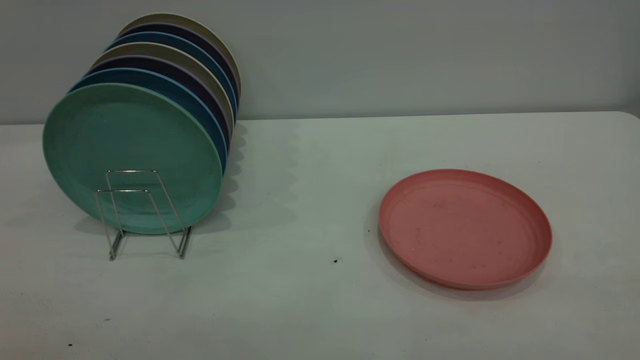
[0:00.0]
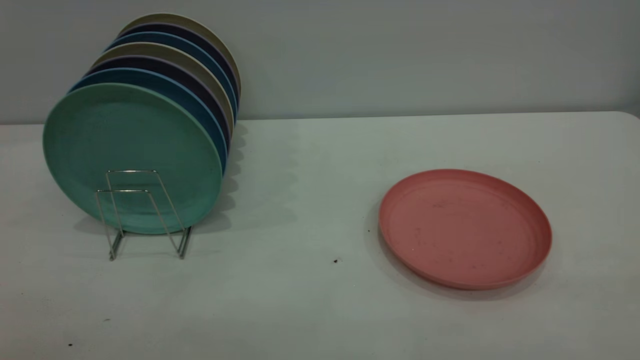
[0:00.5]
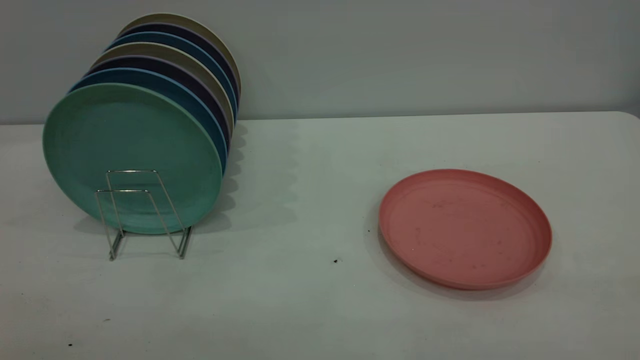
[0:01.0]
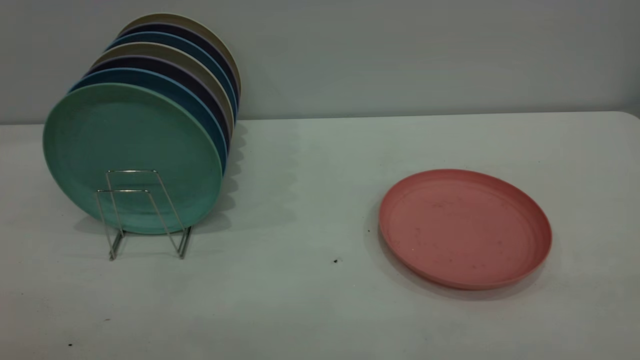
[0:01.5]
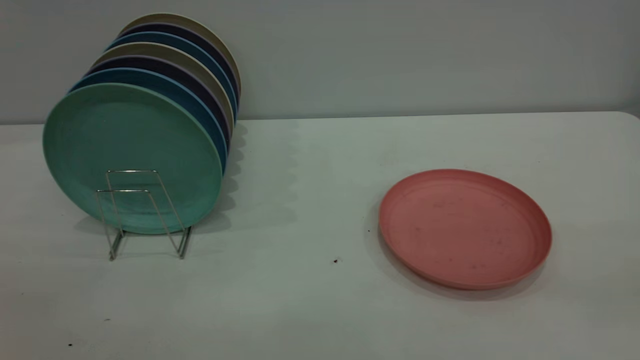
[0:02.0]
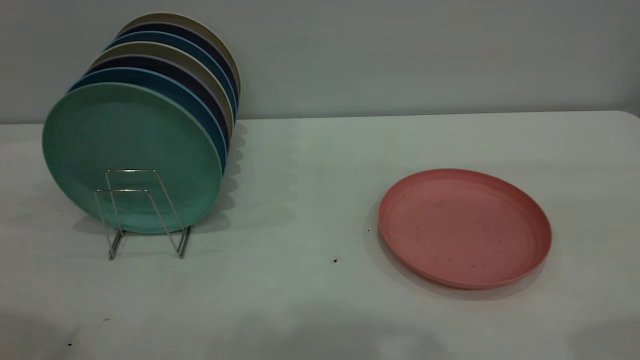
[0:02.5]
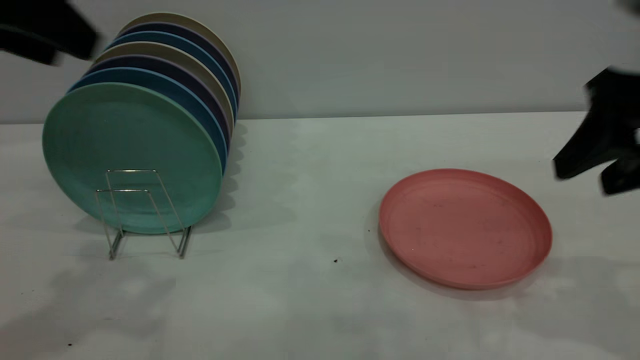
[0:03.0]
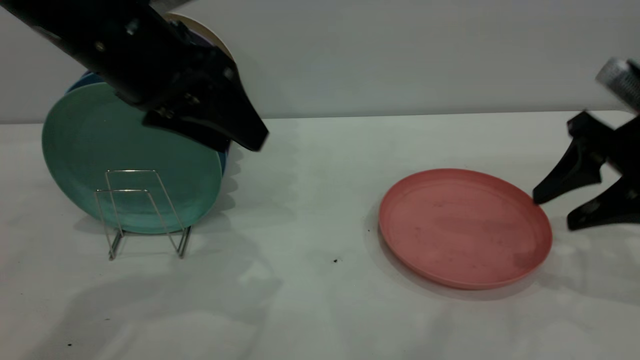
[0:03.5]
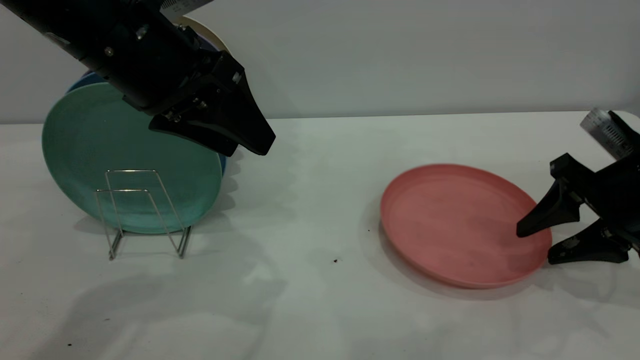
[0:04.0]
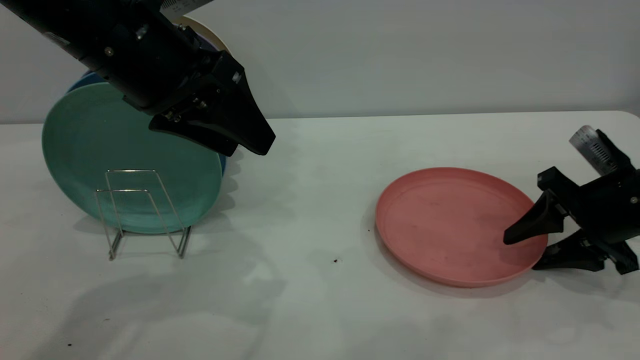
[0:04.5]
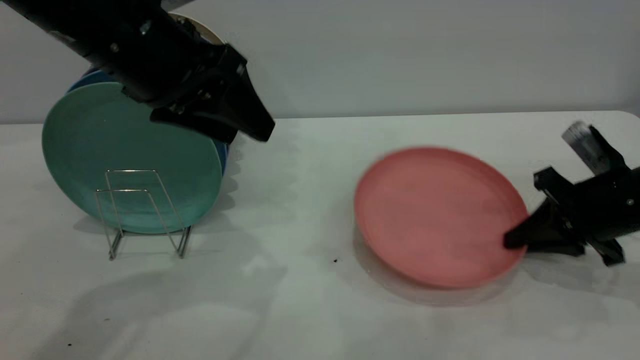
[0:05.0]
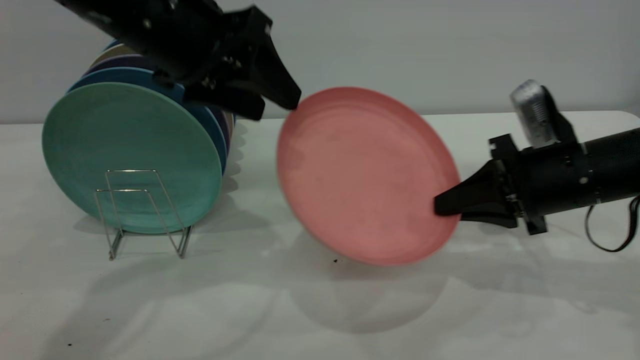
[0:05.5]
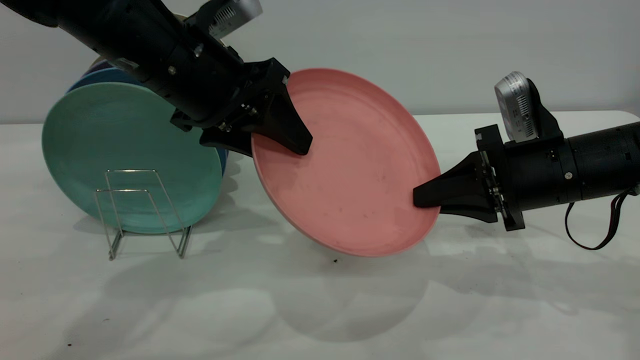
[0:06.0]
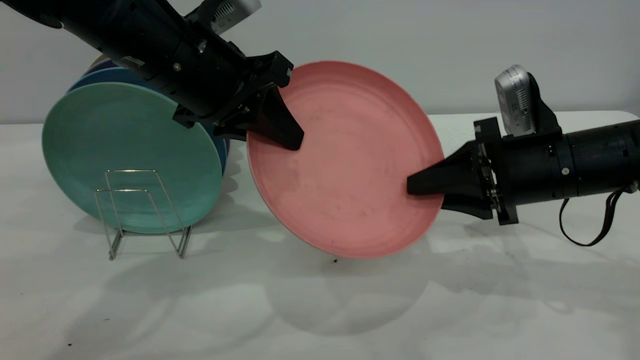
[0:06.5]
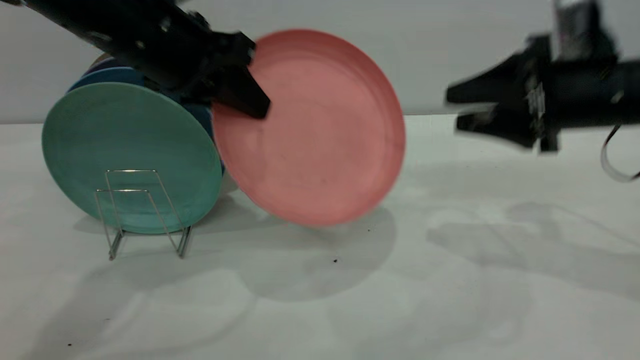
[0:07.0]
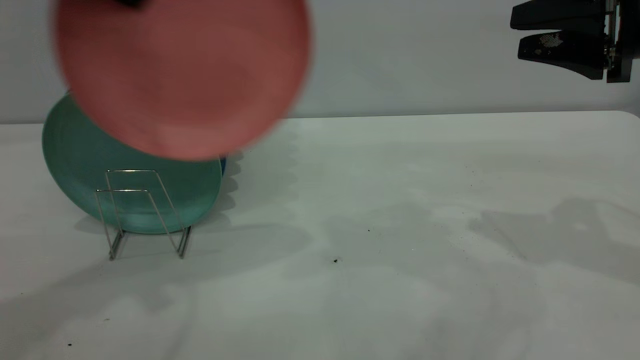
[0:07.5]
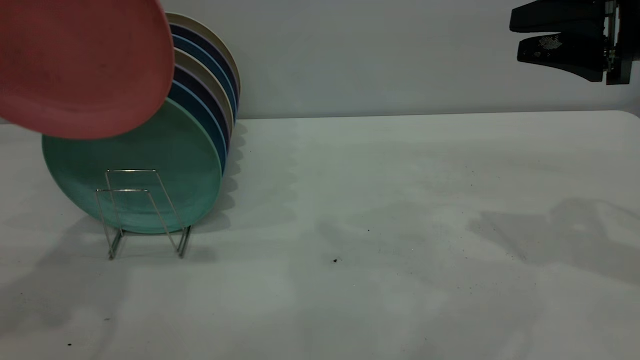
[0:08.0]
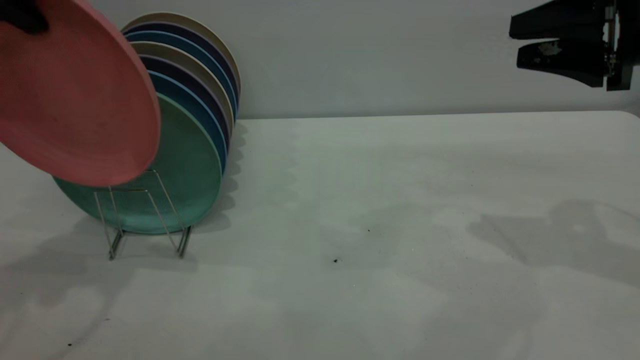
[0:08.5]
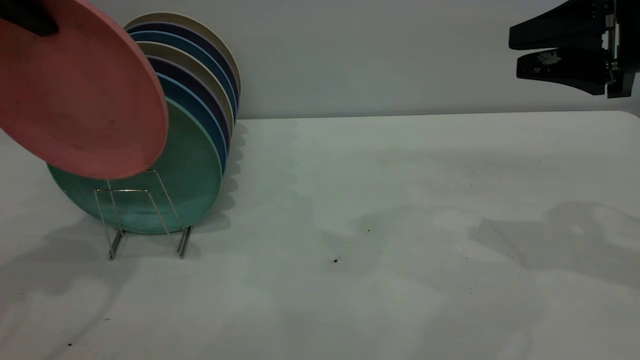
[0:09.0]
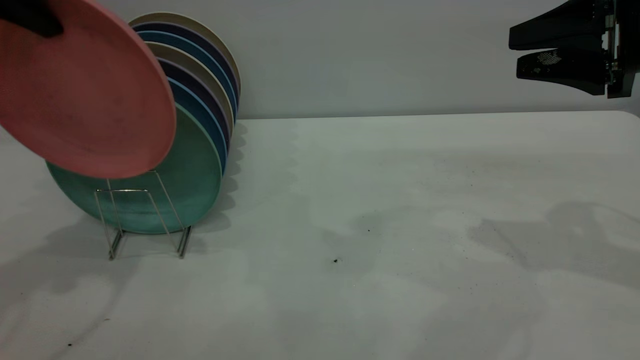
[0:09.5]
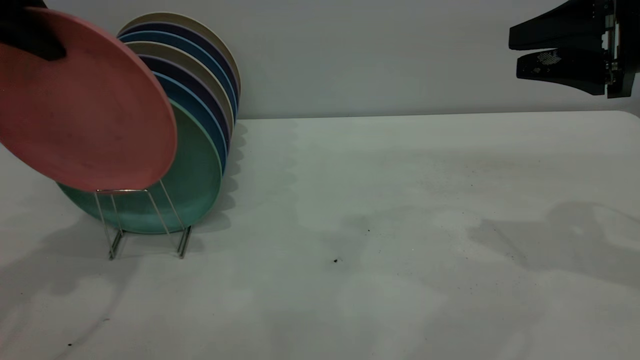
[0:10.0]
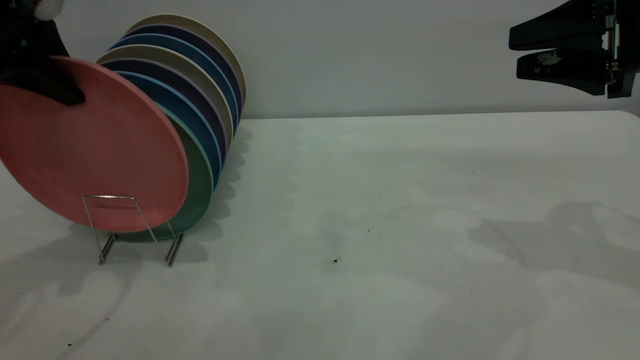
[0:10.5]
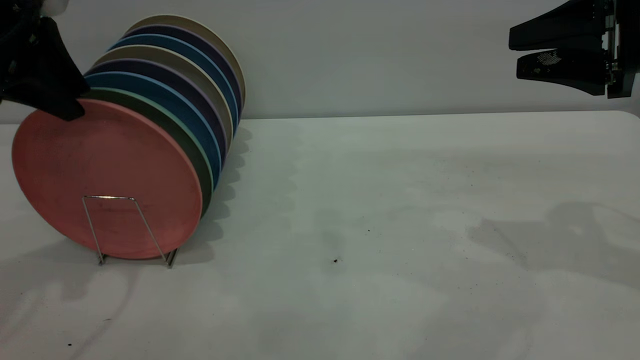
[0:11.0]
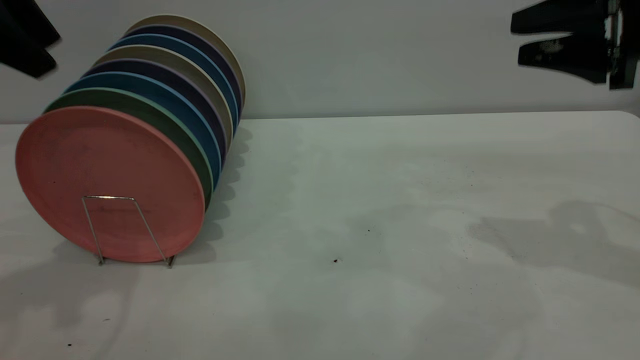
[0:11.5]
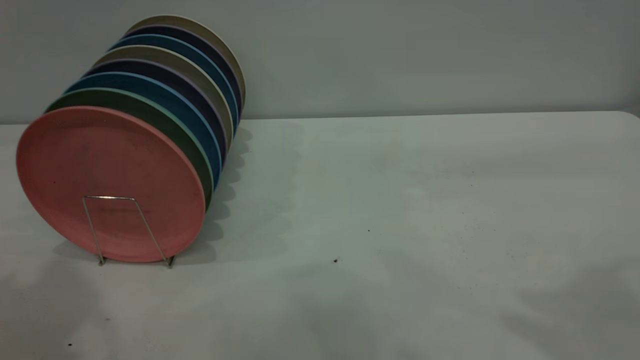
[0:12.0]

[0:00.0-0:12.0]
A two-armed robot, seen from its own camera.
Task of the whole recording: the right gripper grasp the pink plate, the right gripper pass the pink plate to the left gripper, and the left gripper place the pink plate on the plate rack.
Step, 0:00.0 to 0:05.0: Pick up the plate with the right gripper.
Step, 0:05.5 to 0:08.5: Pass the plate from the right gripper to the left gripper.
Step, 0:09.0 to 0:11.5: Place the plate on the shelf.
0:02.0 to 0:04.0: The left gripper shifts about 35 cm forward, to the right and downward. Meanwhile the right gripper moves forward and downward, approximately 40 cm.
0:04.0 to 0:06.0: The right gripper is displaced to the left by approximately 10 cm, and closes.
0:06.0 to 0:08.0: The left gripper goes some 25 cm upward and to the left, and closes up. The right gripper heads upward and to the right, covering roughly 15 cm, and opens.
0:08.0 to 0:10.0: The left gripper heads downward, covering approximately 10 cm.
0:10.0 to 0:12.0: The grippers both shift upward and backward by about 20 cm. The left gripper opens up.

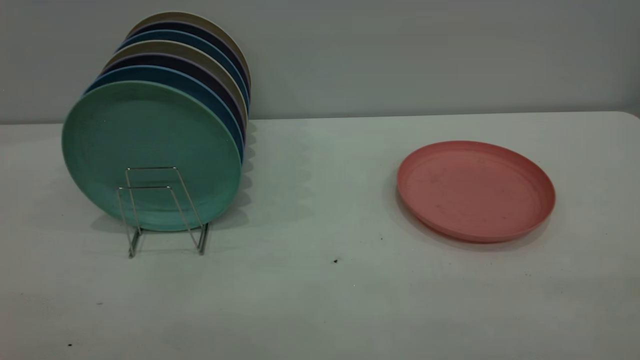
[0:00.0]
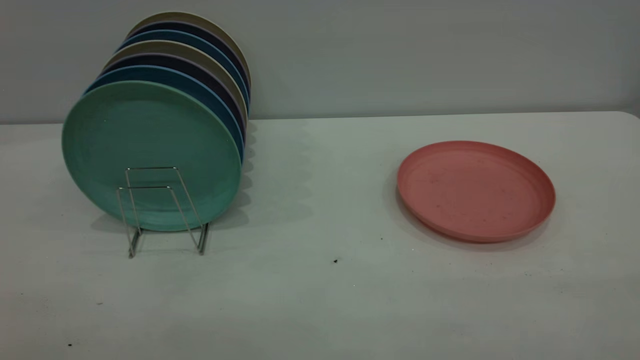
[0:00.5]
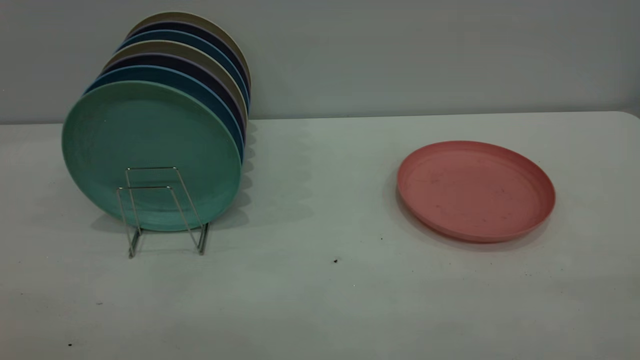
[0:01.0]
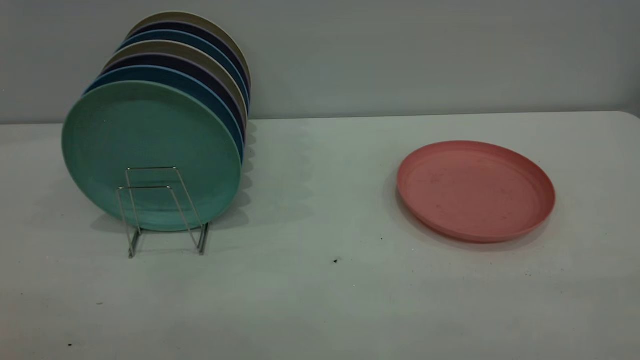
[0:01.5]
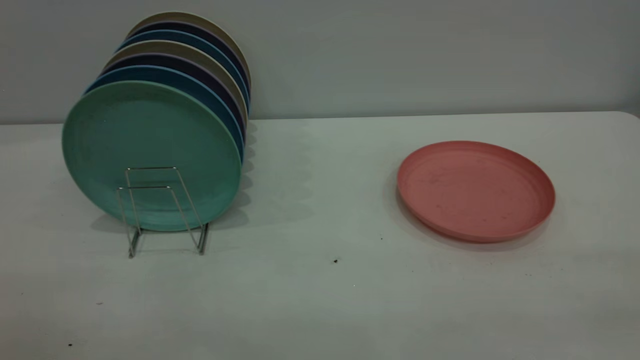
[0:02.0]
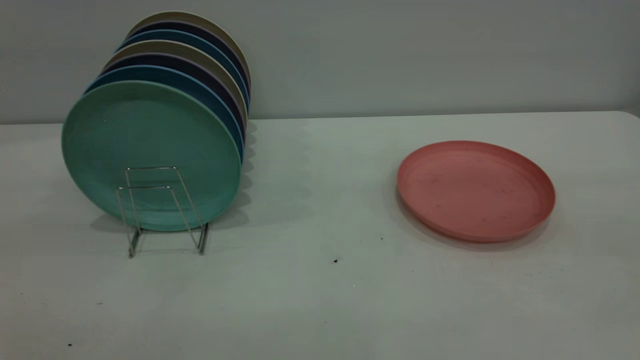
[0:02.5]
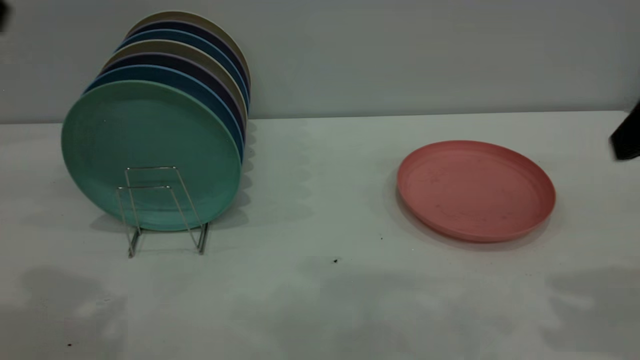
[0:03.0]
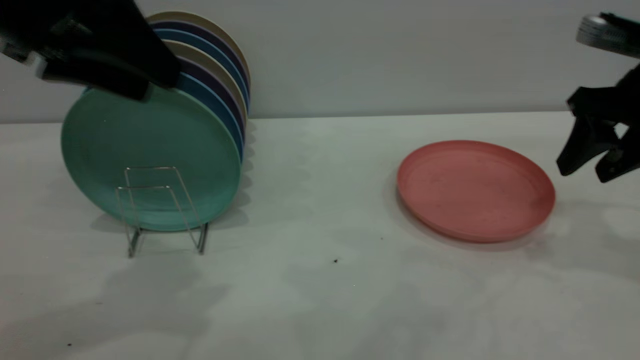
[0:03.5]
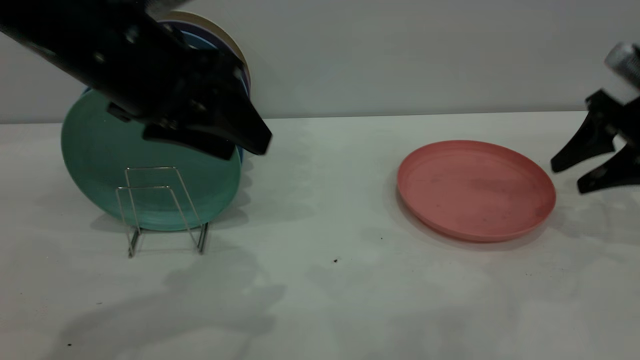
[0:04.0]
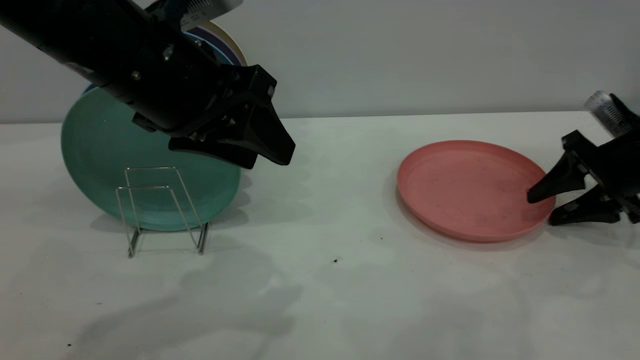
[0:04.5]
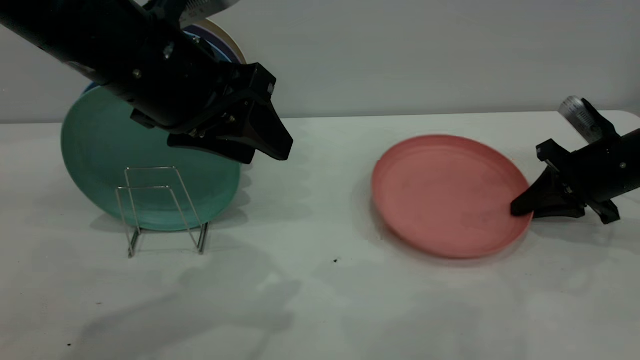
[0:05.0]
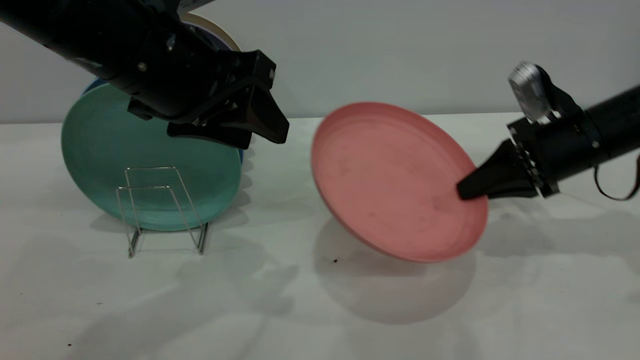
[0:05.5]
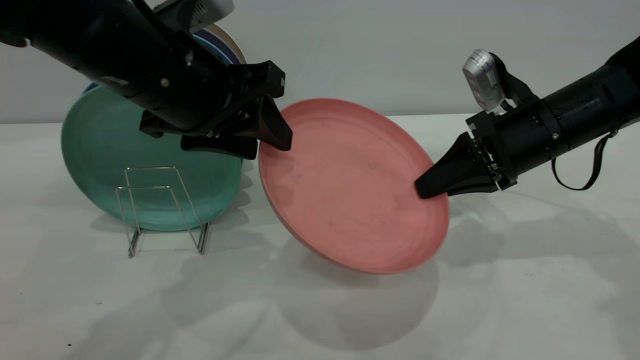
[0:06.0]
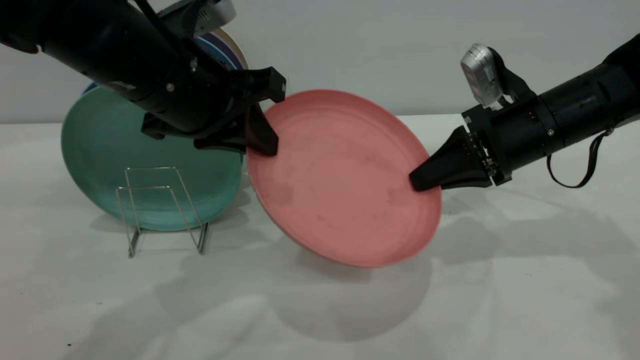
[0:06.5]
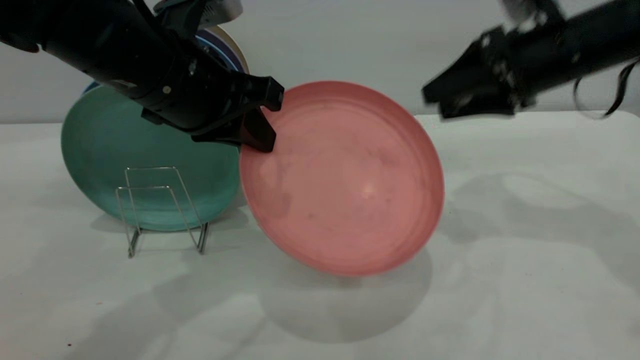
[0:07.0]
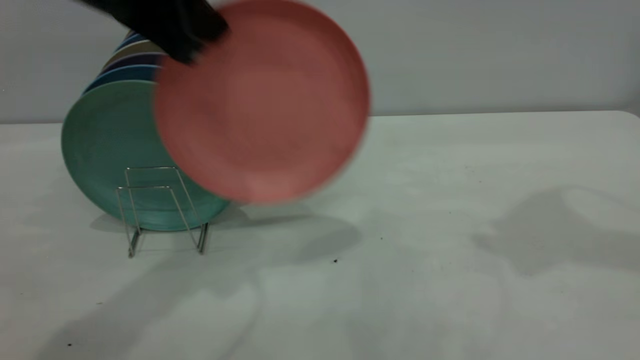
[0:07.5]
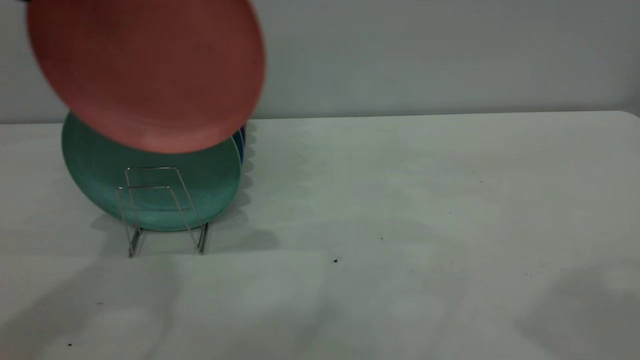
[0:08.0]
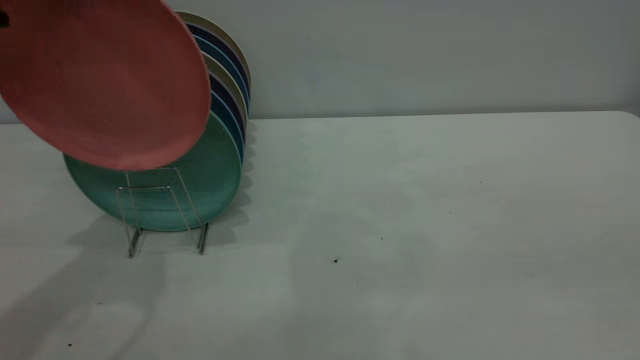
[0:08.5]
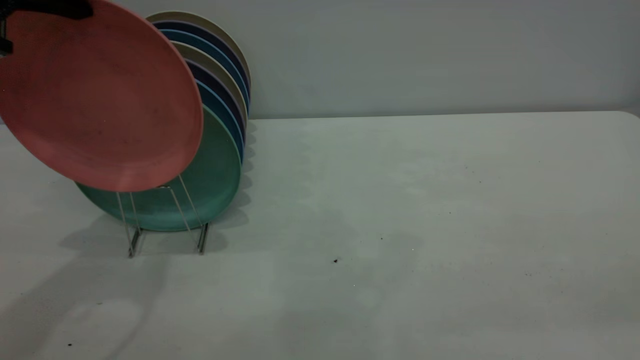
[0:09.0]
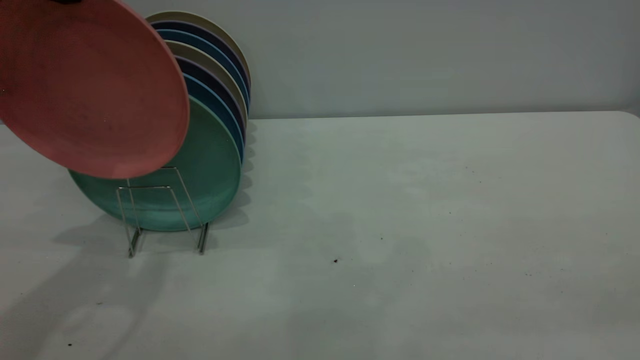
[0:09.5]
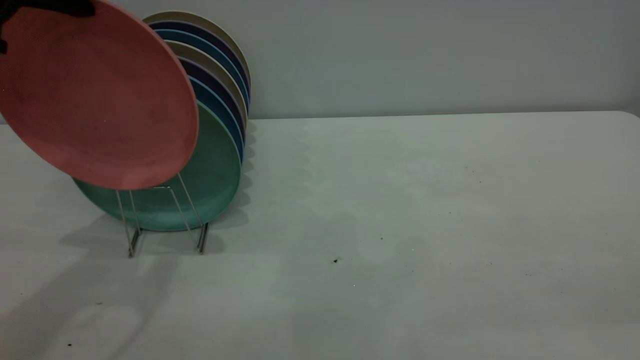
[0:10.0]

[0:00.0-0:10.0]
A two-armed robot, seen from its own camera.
Task of the whole recording: the right gripper grasp the pink plate, the right gripper pass the pink plate to the left gripper, and the left gripper place the pink plate on the plate rack.
Step, 0:00.0 to 0:05.0: Pick up the plate with the right gripper.
Step, 0:05.5 to 0:07.0: Pass the plate from the right gripper to the left gripper.
0:02.0 to 0:04.0: The right gripper travels forward and downward by roughly 50 cm; the left gripper heads forward and to the right, covering roughly 35 cm.
0:04.0 to 0:06.0: The right gripper heads to the left, covering roughly 15 cm, and closes its fingers.
0:06.0 to 0:08.0: The right gripper travels upward and backward by about 35 cm, and opens up; the left gripper travels upward and to the left by approximately 15 cm, and closes its fingers.
0:08.0 to 0:10.0: The right gripper travels backward by some 20 cm.
